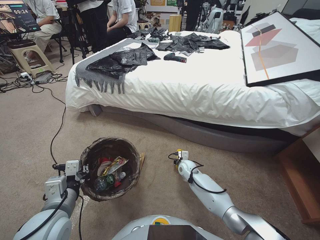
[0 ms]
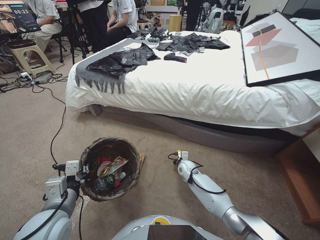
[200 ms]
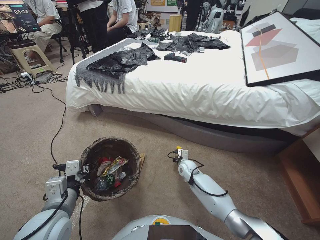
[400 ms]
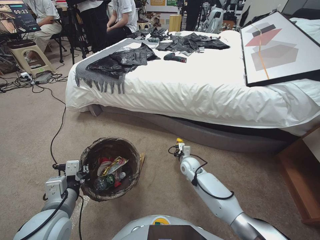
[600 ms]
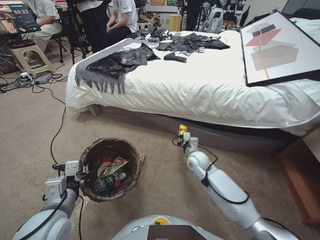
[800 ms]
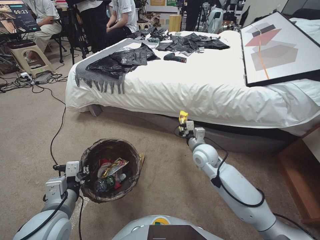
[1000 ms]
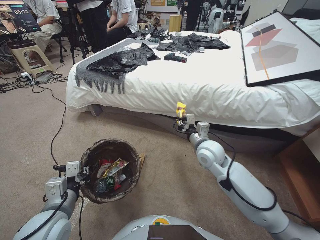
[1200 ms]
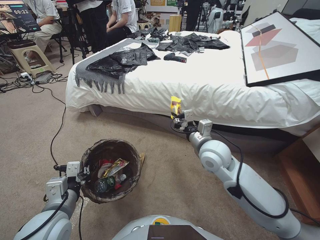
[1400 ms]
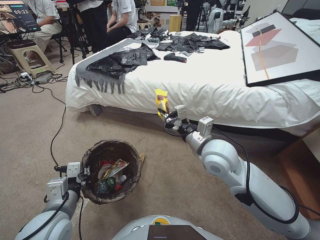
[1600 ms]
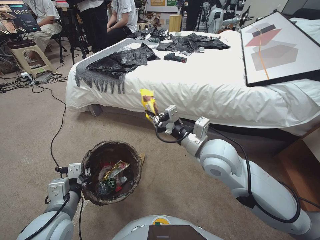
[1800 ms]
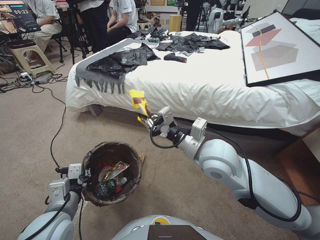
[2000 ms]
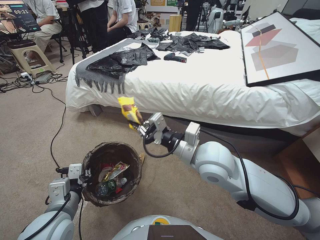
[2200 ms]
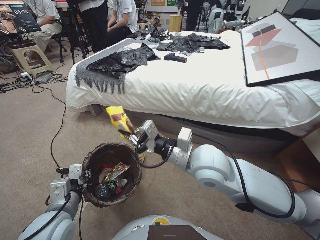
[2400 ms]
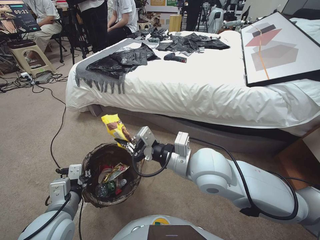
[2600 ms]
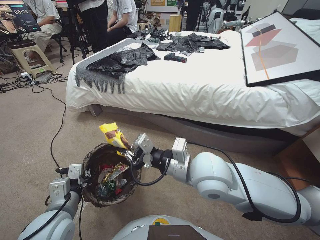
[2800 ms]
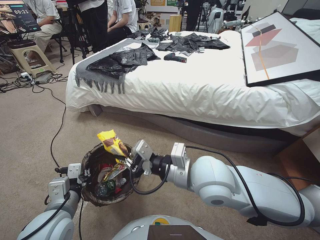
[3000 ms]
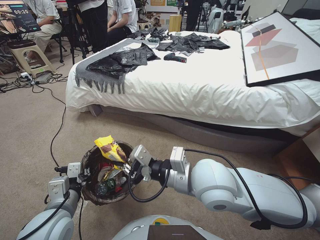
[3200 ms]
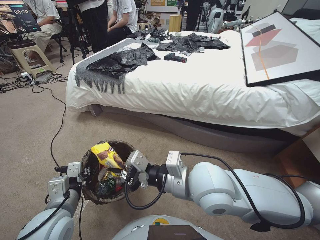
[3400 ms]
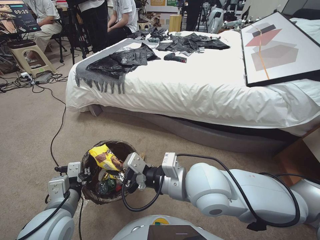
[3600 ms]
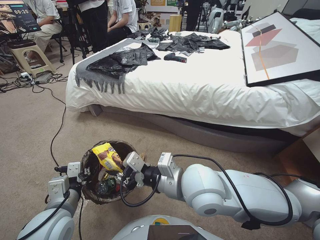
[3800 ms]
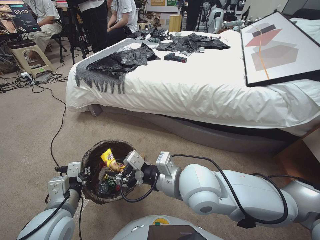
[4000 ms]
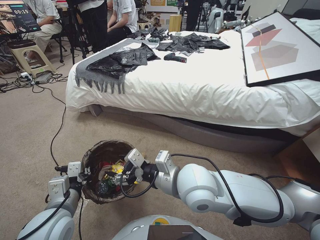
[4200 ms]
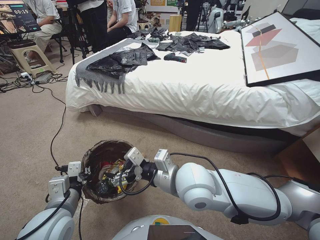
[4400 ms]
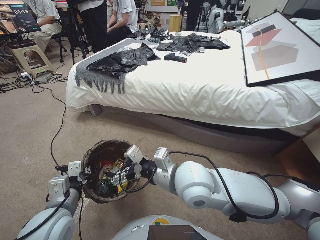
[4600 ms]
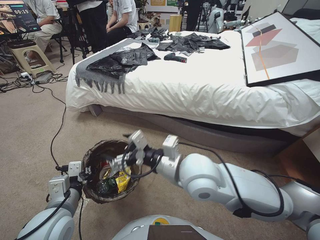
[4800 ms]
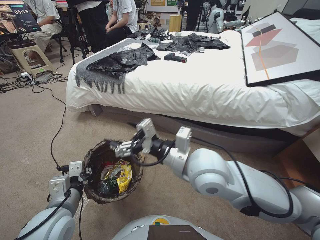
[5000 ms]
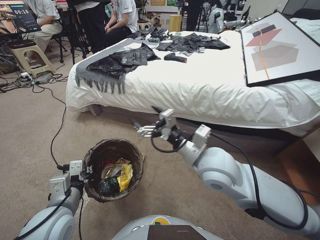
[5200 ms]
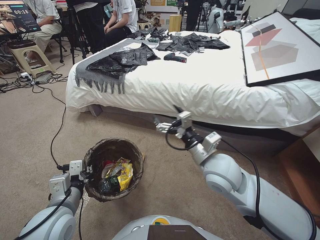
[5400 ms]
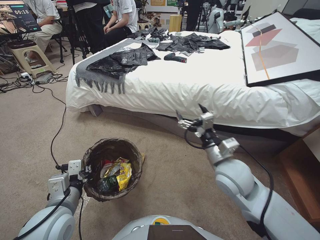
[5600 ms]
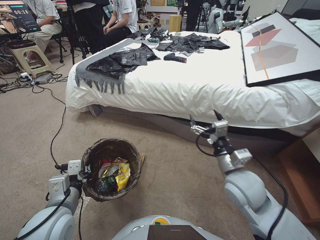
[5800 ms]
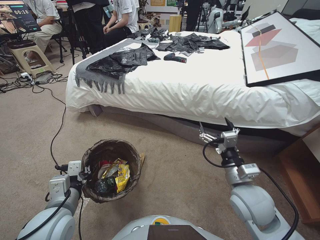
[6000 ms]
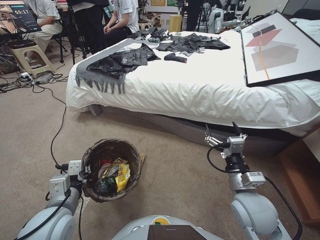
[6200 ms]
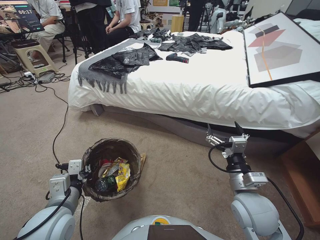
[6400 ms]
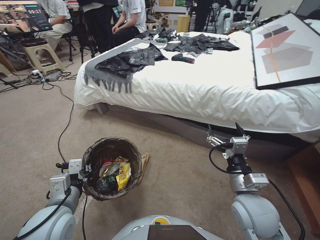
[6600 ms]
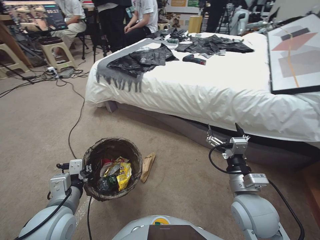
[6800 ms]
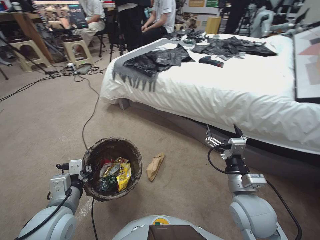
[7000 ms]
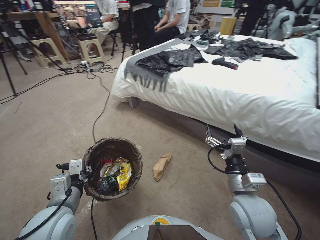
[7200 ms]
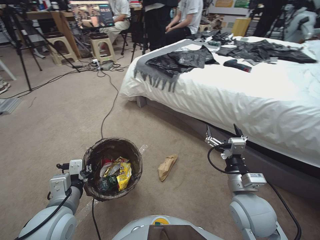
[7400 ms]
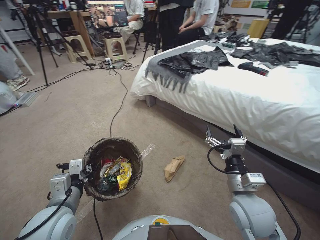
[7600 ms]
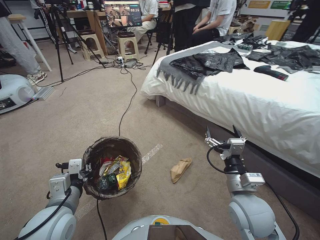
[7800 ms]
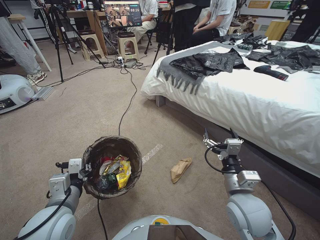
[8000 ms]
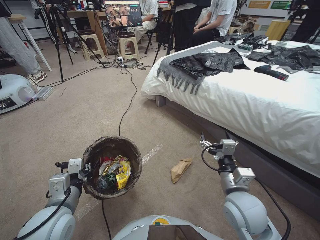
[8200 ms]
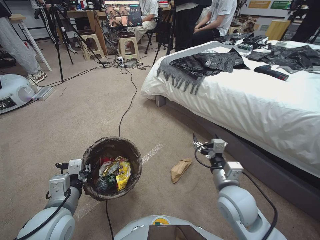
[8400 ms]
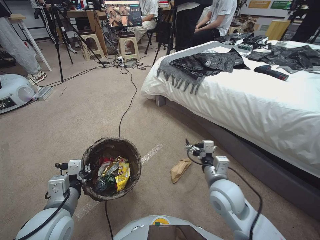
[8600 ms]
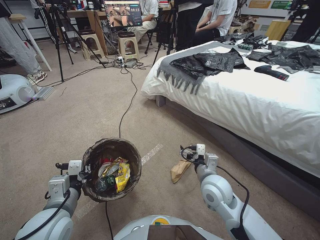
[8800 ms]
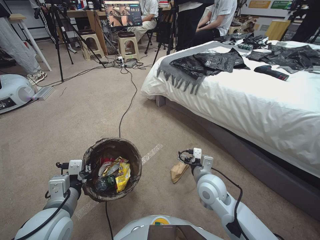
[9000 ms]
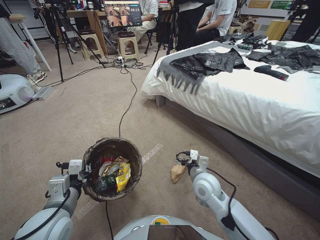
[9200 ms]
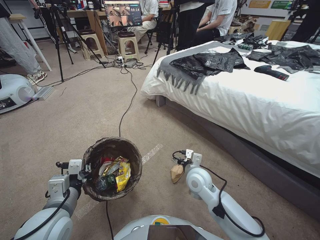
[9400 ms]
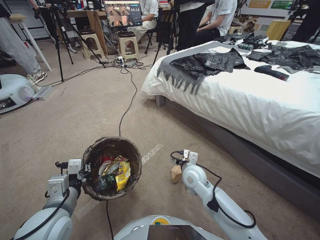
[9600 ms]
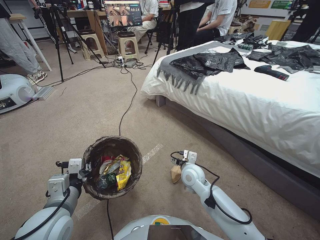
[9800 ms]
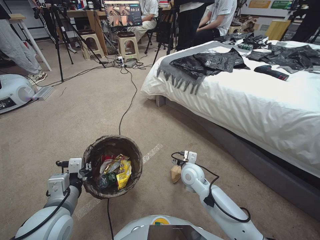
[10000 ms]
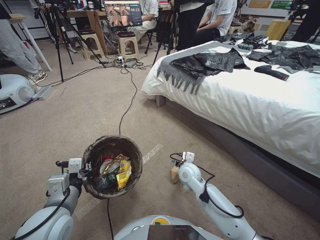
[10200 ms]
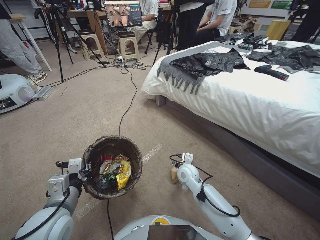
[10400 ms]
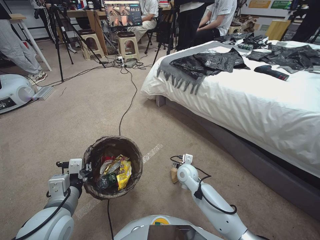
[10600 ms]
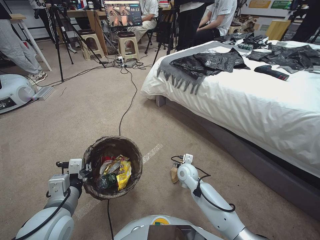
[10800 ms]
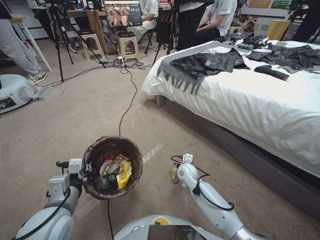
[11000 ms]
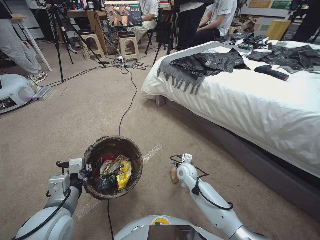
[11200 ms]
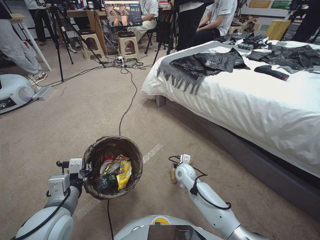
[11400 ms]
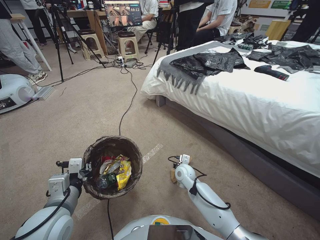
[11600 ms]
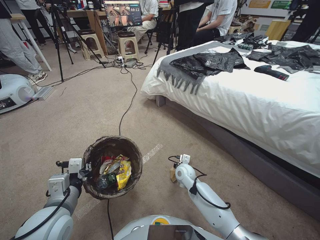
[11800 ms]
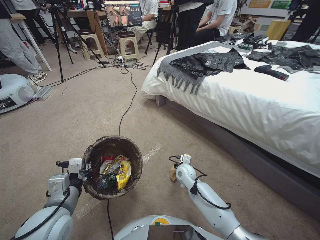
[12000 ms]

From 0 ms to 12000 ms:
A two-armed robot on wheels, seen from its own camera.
Task of the whole recording: Pick up the trash bin, then pick up the garbage from the floor and place it into the trash bin.
From 0 ms to 1600 ms: The right gripper goes some 35 cm upward.
From 1600 ms to 3000 ms: The right gripper moves backward and to the left, about 10 cm.
From 3000 ms to 4400 ms: The right gripper opens its fingers.
From 4400 ms to 6000 ms: The right gripper moves to the right, roughly 15 cm.
From 7600 ms to 9000 ms: The right gripper heads forward, to the left and downward, covering approximately 10 cm.
From 9000 ms to 10400 ms: The right gripper heads downward and forward, covering some 15 cm.
From 10400 ms to 12000 ms: The right gripper goes approximately 5 cm downward, and closes up.

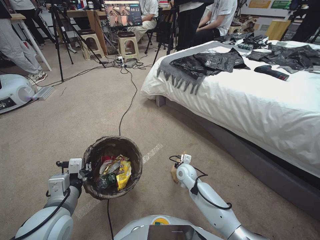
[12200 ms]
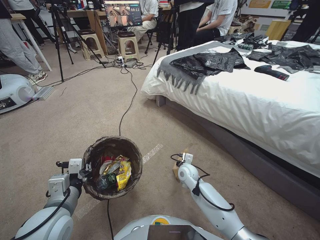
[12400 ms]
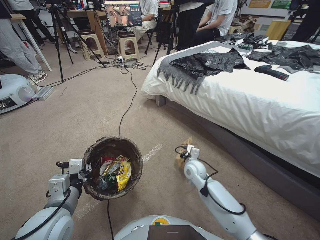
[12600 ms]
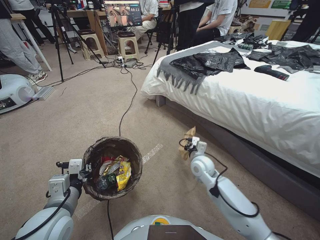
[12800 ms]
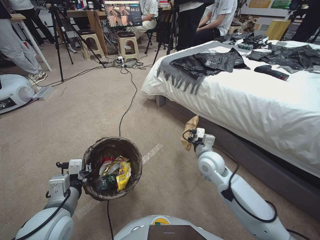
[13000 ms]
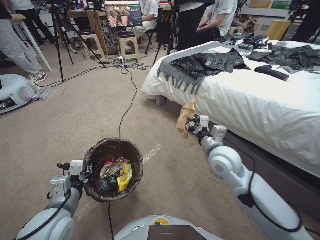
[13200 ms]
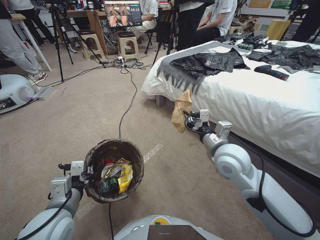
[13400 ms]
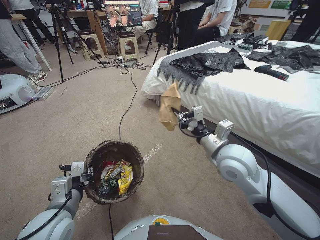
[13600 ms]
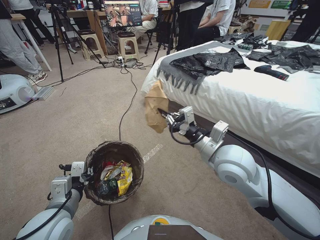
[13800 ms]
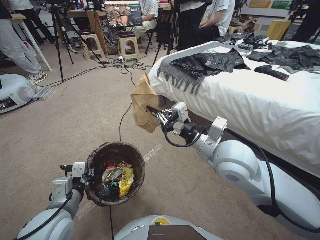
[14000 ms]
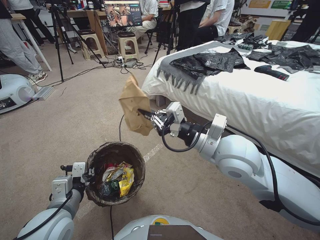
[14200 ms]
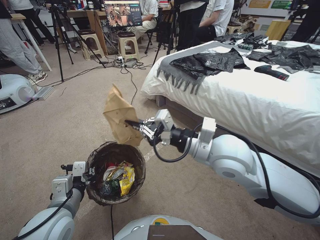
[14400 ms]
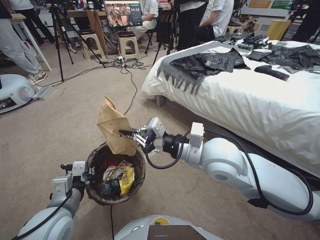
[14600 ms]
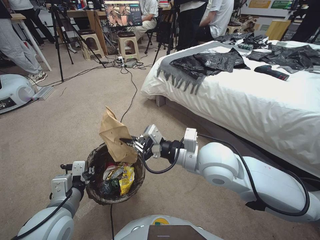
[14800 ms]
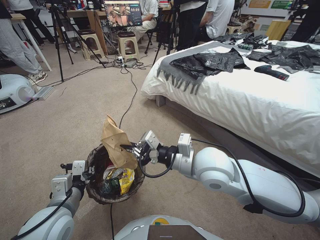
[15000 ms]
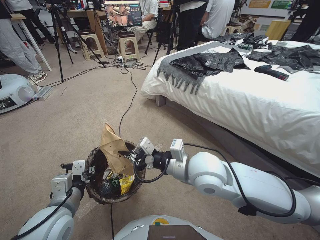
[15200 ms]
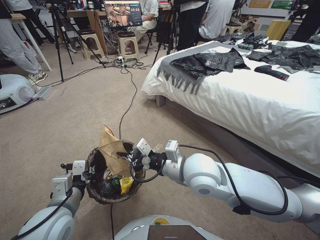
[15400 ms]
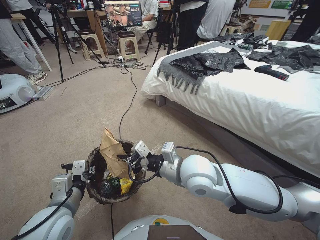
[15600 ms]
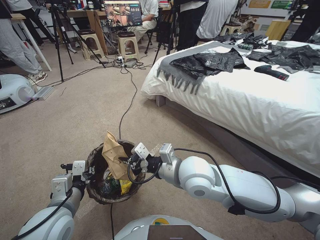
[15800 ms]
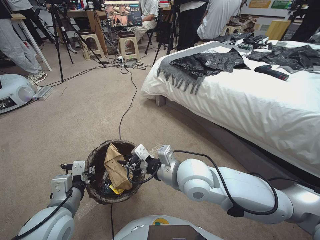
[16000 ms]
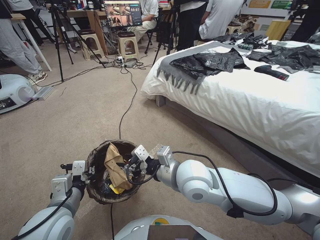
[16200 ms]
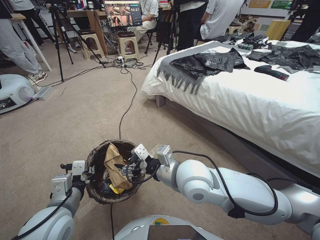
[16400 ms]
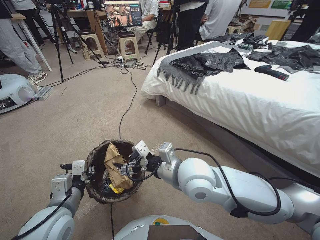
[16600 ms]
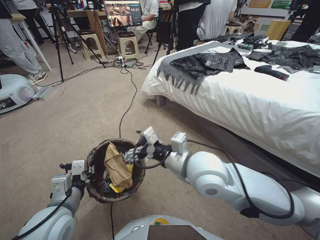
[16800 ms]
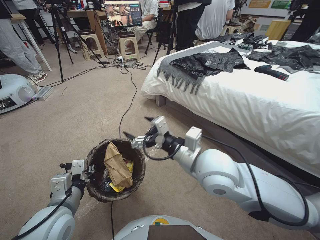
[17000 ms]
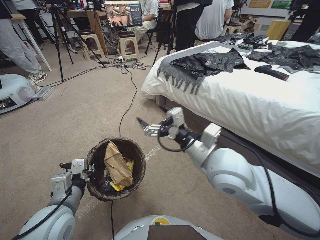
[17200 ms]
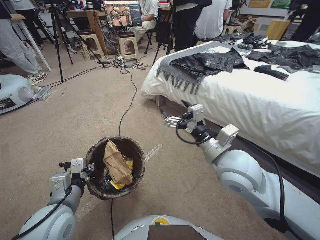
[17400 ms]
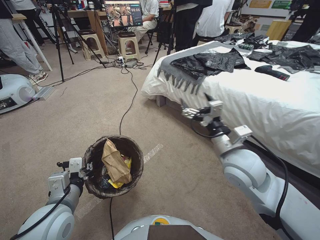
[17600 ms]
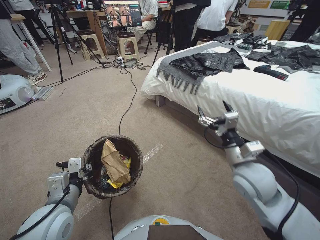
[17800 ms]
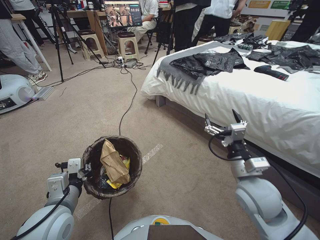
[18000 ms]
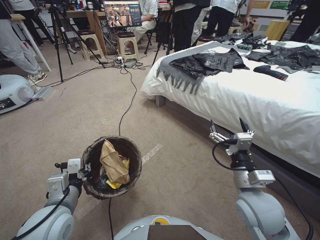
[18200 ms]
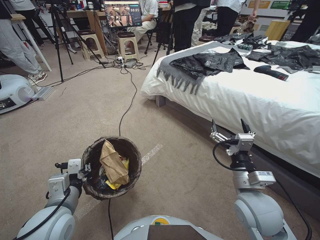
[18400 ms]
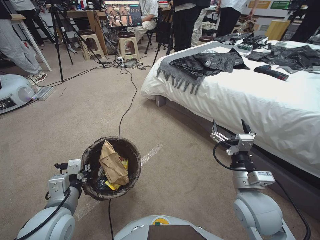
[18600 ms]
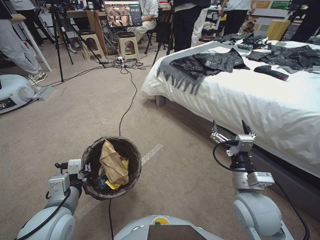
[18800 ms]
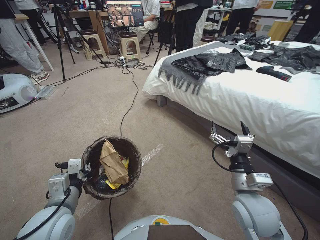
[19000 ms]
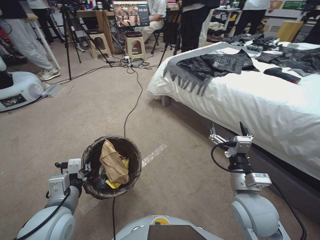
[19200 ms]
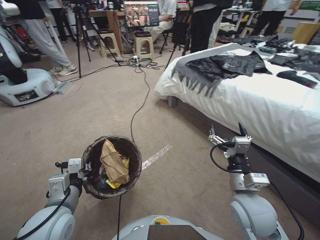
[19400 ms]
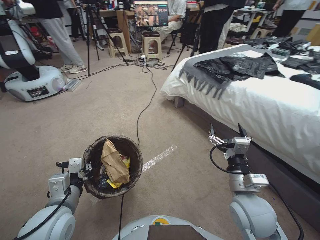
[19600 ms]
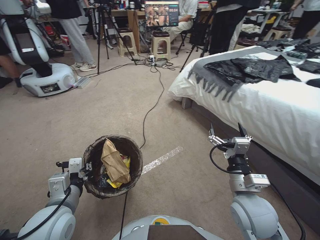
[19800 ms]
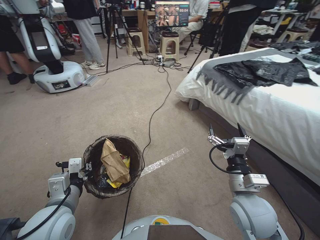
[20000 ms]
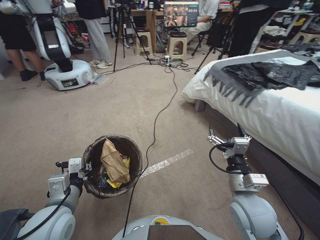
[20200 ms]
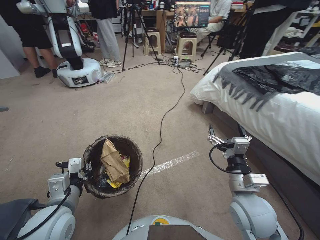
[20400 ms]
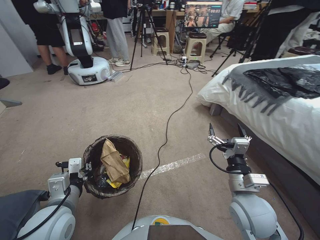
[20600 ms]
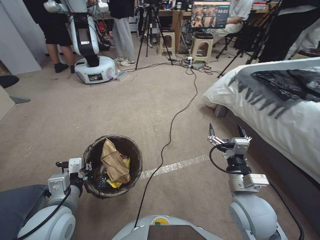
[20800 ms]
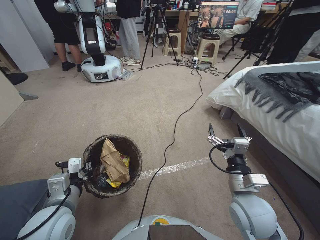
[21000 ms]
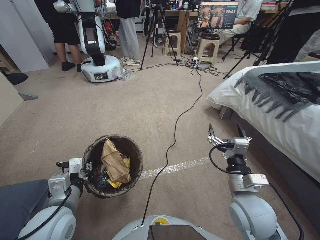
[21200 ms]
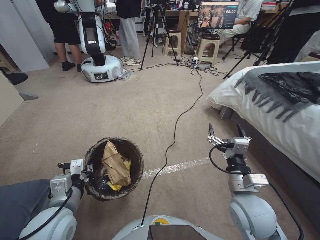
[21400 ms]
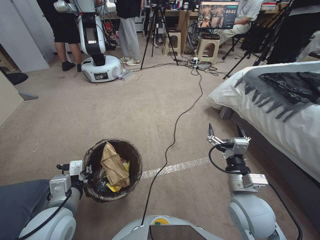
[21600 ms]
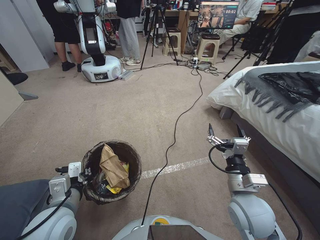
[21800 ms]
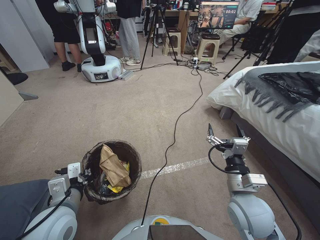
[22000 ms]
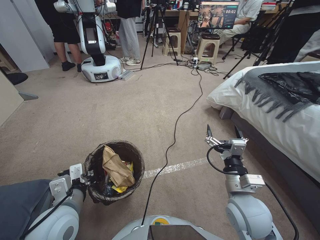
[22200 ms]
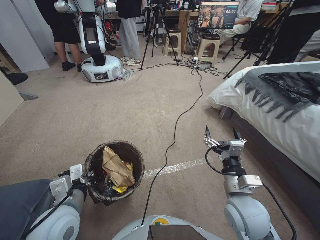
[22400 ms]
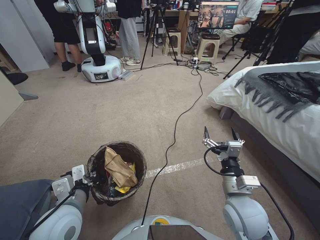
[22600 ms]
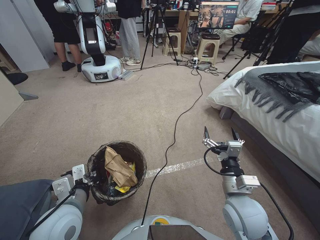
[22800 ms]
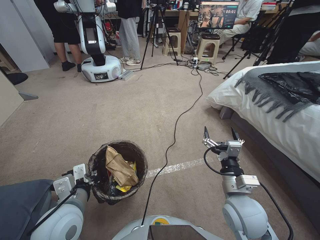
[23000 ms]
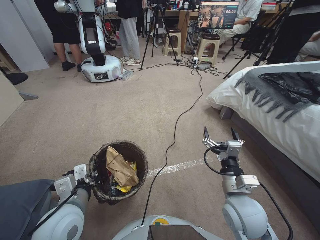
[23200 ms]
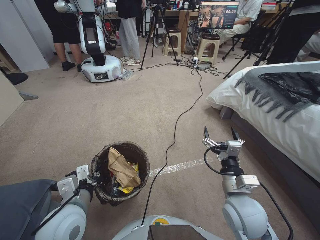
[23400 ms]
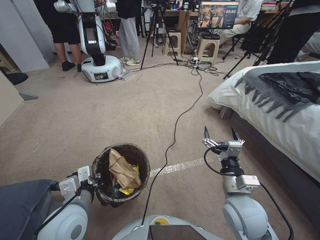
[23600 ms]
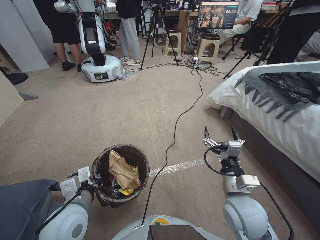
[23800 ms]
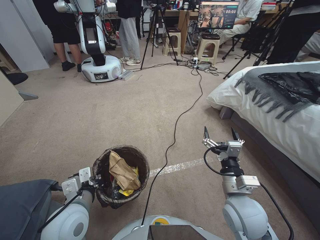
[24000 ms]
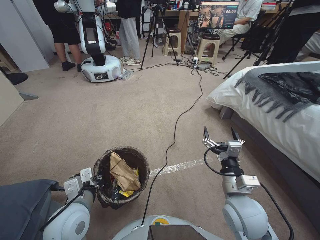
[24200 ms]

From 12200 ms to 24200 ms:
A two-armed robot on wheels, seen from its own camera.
Task of the whole recording: Pick up the trash bin, then pick up the garbage from the floor and place it into the trash bin.
From 12200 ms to 13800 ms: The right gripper shifts approximately 30 cm upward.
From 13800 ms to 15200 ms: The right gripper travels to the left by approximately 5 cm.
From 15200 ms to 16600 ms: The right gripper opens.
From 16600 ms to 18200 ms: The right gripper is displaced to the right by roughly 20 cm.
From 21200 ms to 24200 ms: The grippers move only a little.
